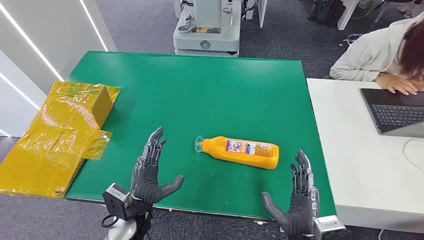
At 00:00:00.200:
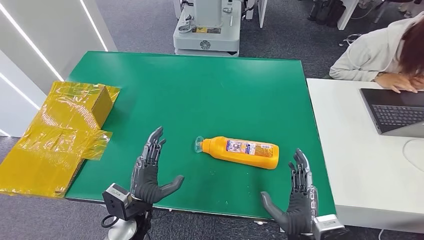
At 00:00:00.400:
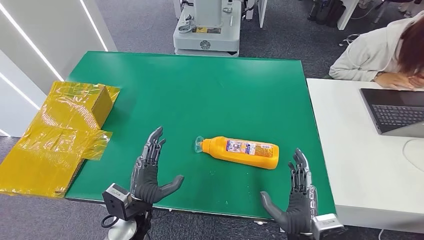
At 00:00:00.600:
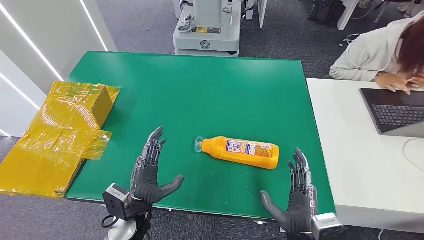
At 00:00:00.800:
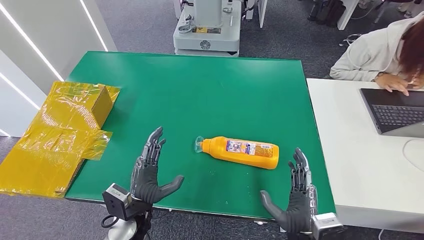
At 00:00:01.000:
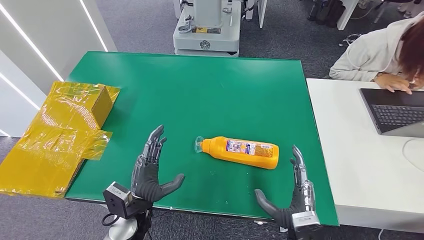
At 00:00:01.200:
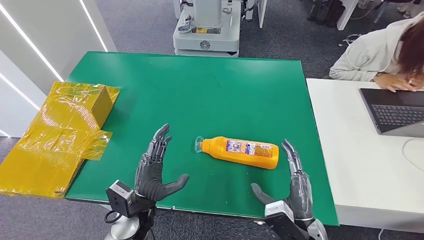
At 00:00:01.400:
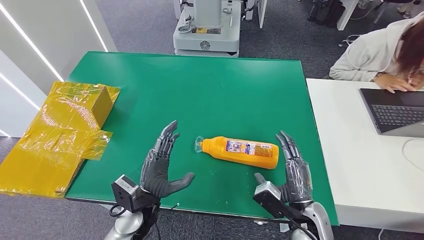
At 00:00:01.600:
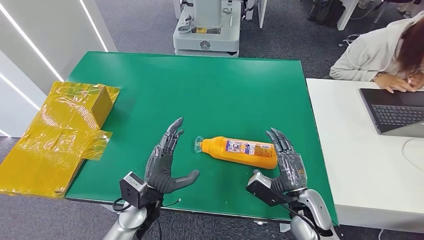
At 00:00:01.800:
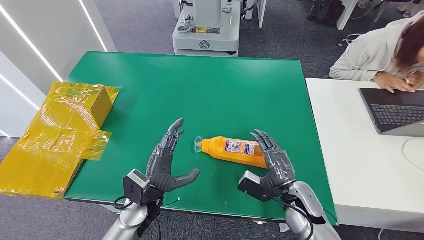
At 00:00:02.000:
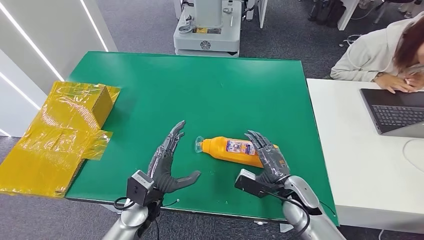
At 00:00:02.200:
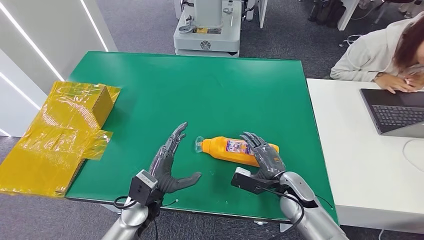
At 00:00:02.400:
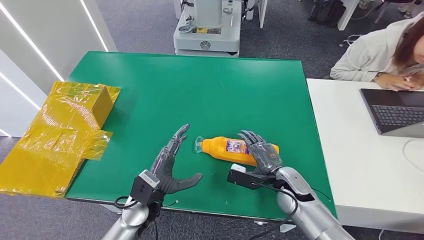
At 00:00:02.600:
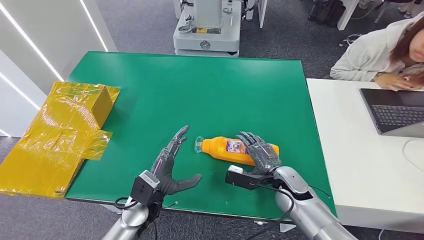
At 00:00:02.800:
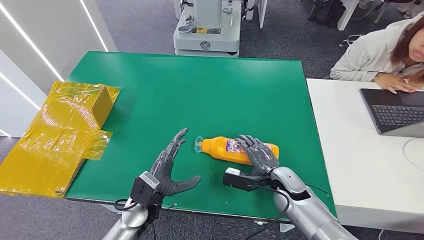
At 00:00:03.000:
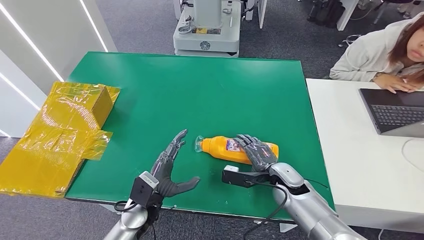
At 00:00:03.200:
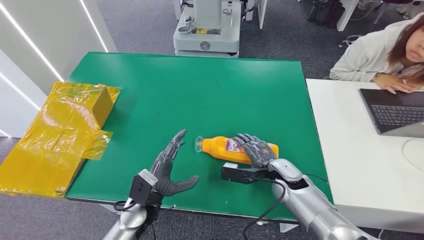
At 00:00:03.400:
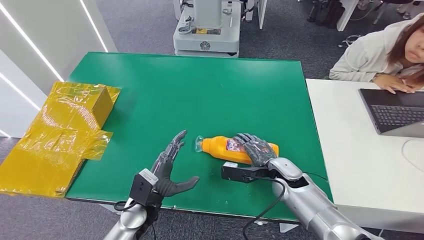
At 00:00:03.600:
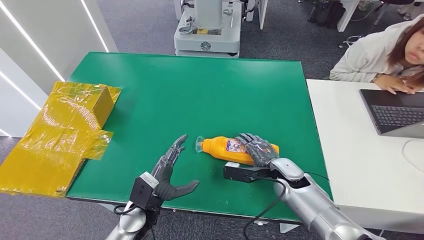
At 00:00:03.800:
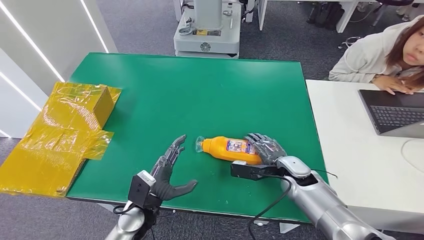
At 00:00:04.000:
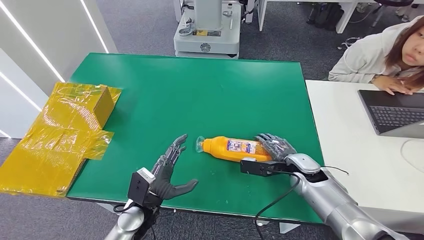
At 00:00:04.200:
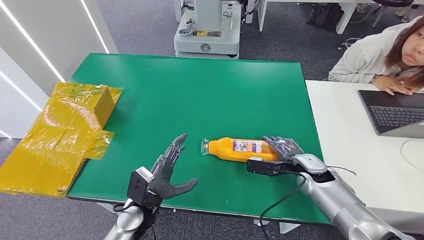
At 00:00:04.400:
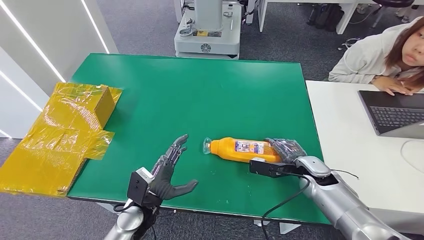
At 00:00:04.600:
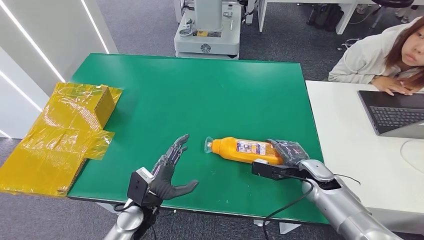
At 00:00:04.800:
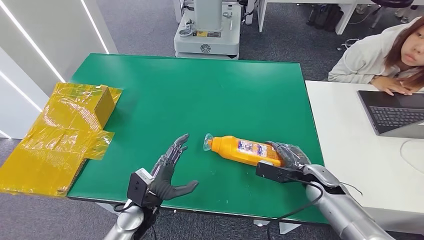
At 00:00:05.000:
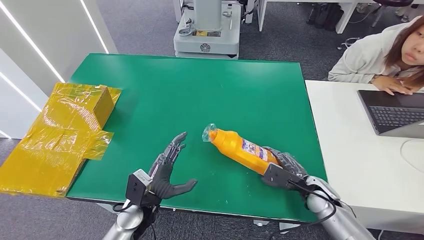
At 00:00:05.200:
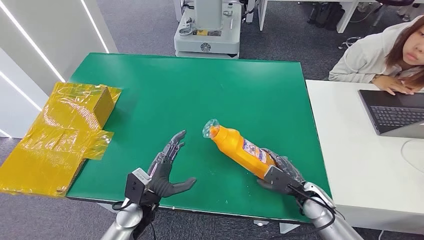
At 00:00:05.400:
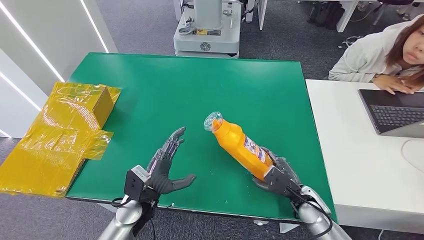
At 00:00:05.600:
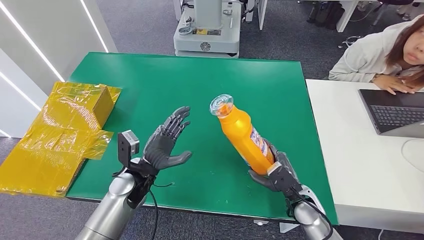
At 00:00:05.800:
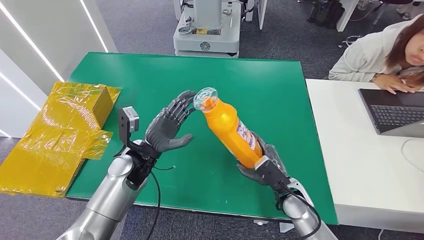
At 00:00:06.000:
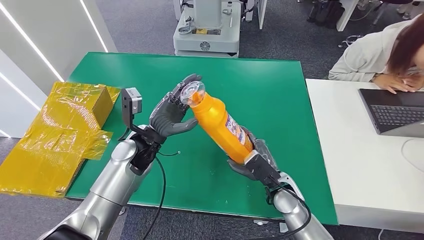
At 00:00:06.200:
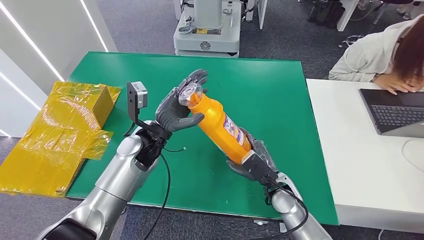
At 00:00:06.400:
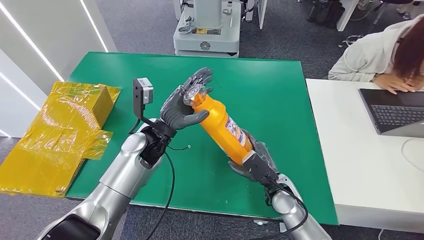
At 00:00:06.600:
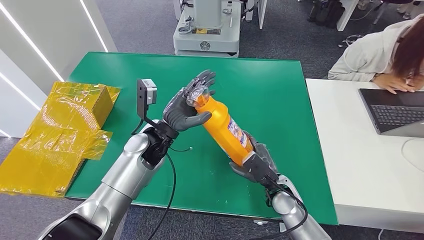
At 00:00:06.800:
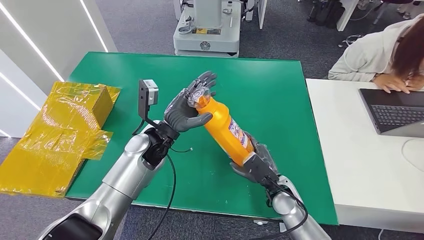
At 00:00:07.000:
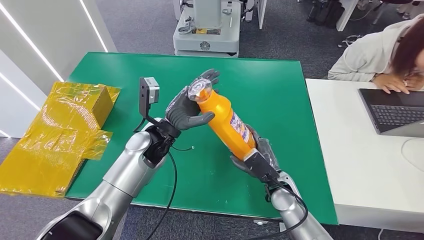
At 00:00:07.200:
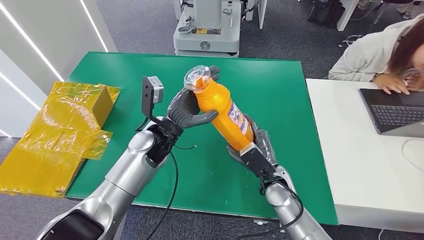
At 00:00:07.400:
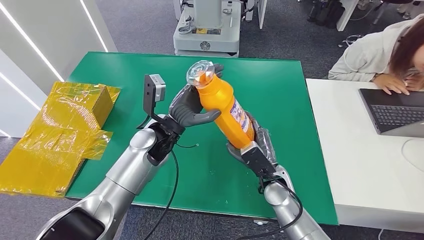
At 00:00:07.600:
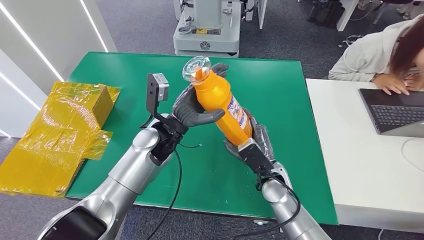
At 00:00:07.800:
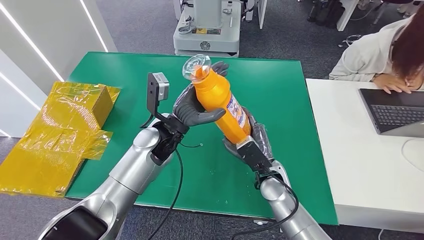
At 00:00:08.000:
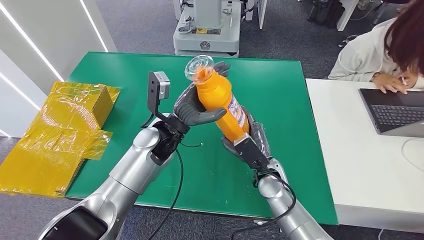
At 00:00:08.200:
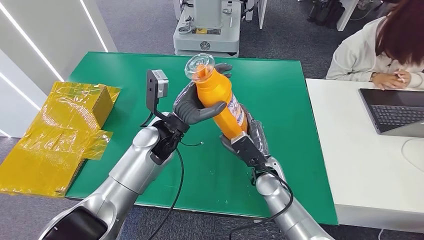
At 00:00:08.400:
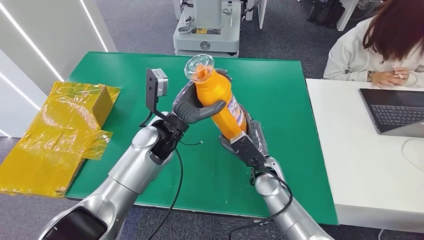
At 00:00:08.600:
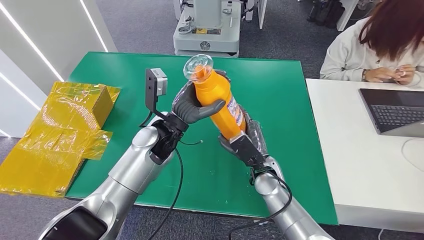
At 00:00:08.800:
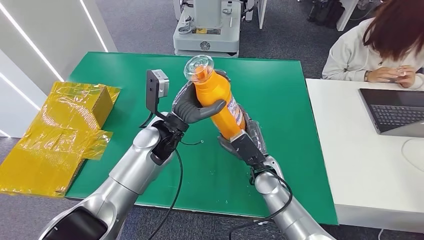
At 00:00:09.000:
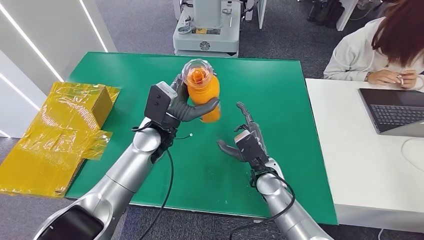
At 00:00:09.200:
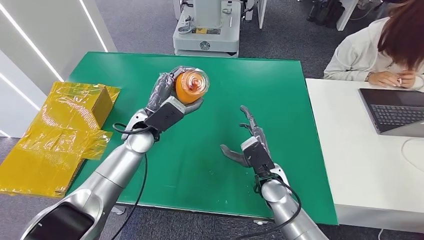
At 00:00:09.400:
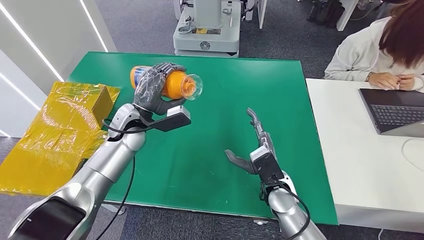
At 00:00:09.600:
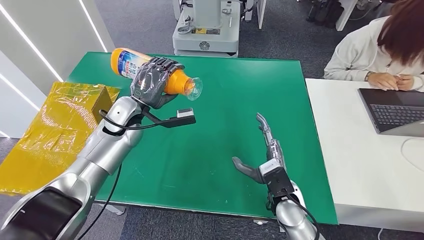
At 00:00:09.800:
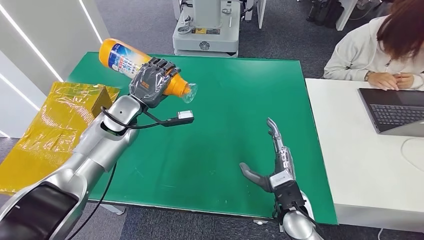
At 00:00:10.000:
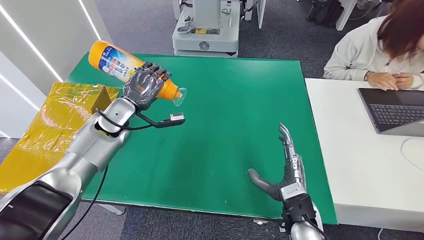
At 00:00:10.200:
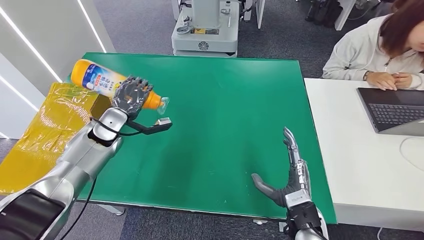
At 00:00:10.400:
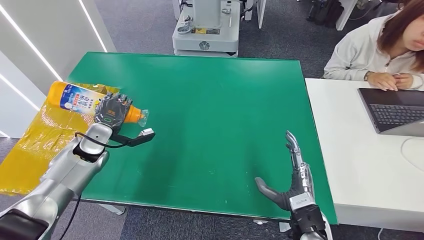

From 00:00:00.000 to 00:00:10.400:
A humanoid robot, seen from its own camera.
Step, from 00:00:00.000 to 00:00:05.800: Pick up the bottle from the table.
From 00:00:01.400 to 00:00:03.000: The right hand moves forward, approximately 10 cm.
From 00:00:03.000 to 00:00:04.400: The right hand is displaced to the right by about 10 cm.
From 00:00:06.000 to 00:00:07.400: The left hand shifts by roughly 5 cm.

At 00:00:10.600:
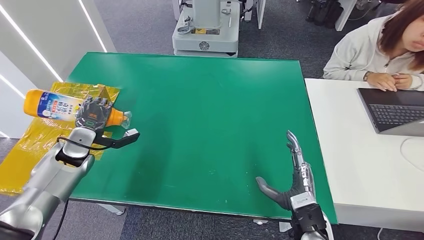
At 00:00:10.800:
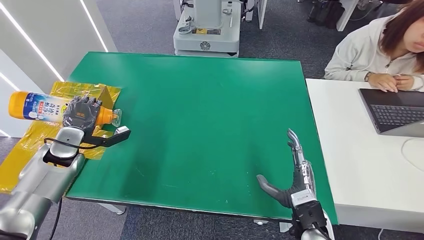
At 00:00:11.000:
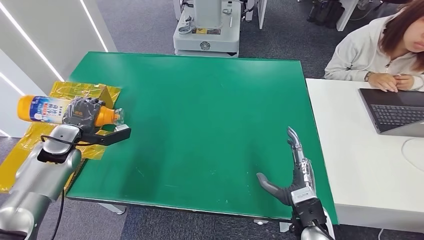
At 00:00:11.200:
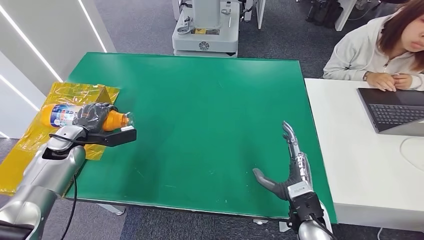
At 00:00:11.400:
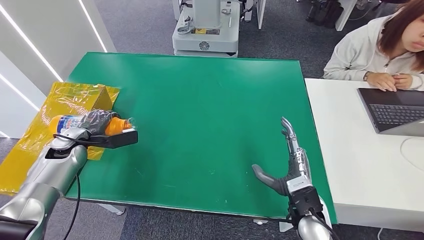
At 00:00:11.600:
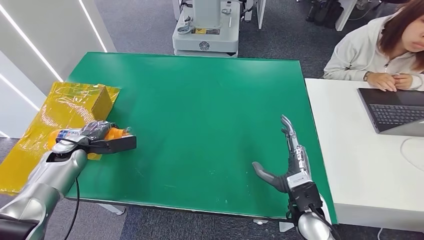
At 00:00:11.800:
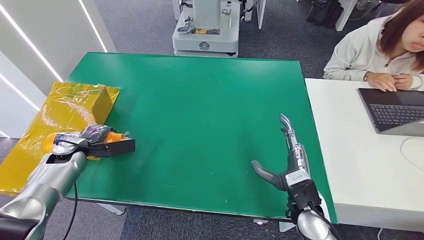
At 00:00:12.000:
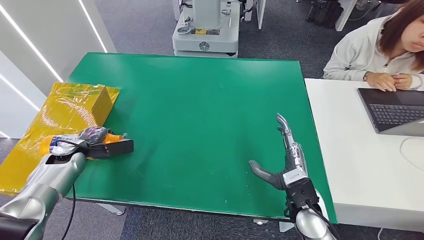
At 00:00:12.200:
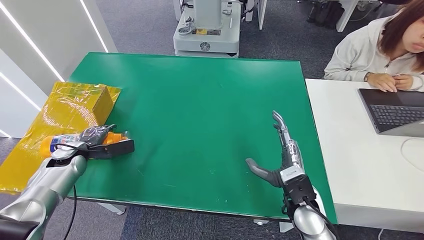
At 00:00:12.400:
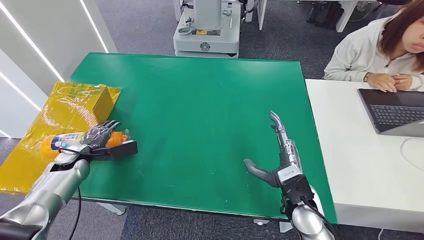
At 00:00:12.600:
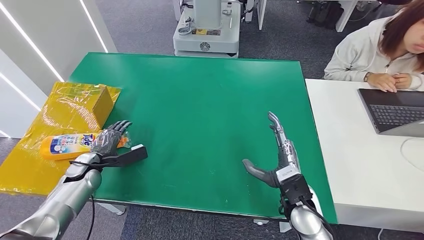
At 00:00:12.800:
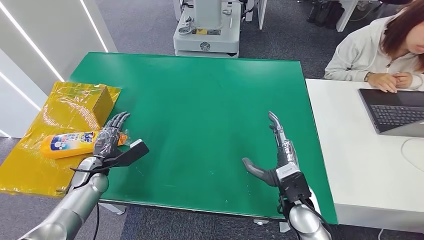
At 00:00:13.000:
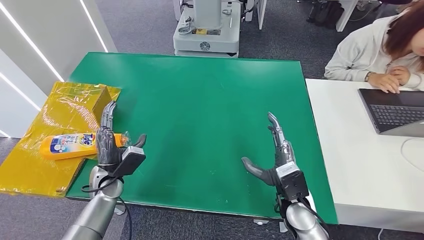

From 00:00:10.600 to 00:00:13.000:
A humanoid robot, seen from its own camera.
Step, from 00:00:10.600 to 00:00:13.000: Turn the bottle to the front side.
From 00:00:10.600 to 00:00:11.800: The left hand moves to the left, about 5 cm.
From 00:00:11.800 to 00:00:13.000: The left hand moves to the right and backward, roughly 15 cm.
